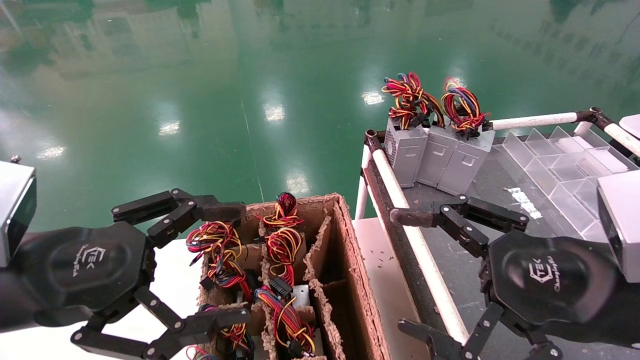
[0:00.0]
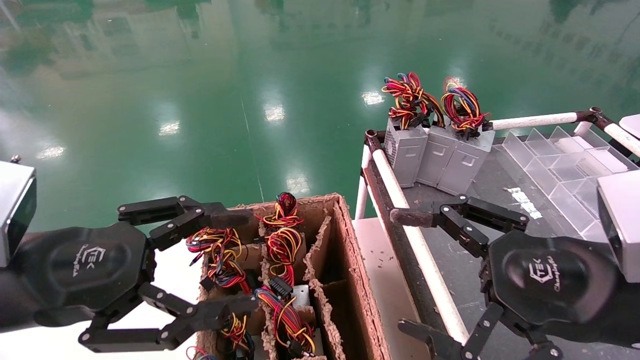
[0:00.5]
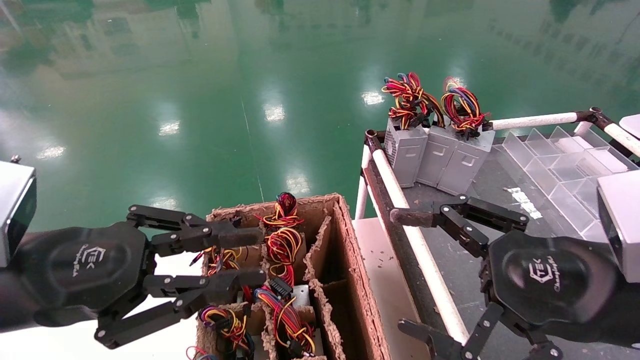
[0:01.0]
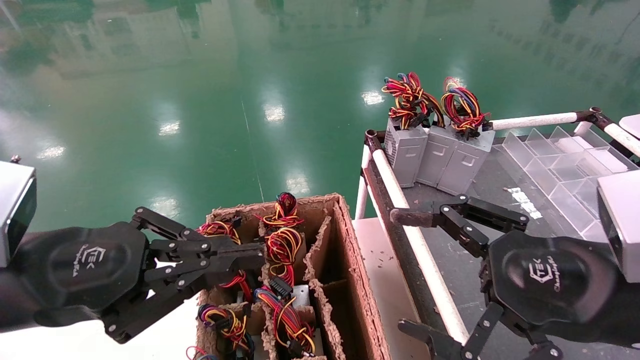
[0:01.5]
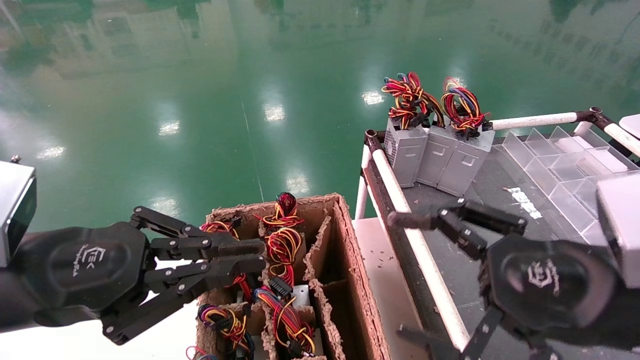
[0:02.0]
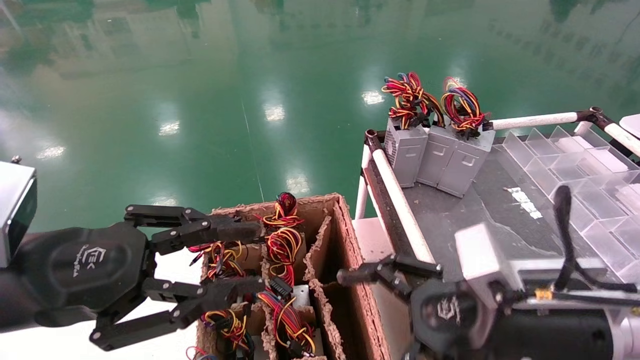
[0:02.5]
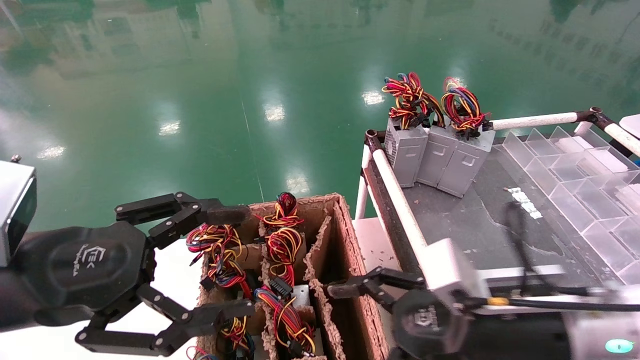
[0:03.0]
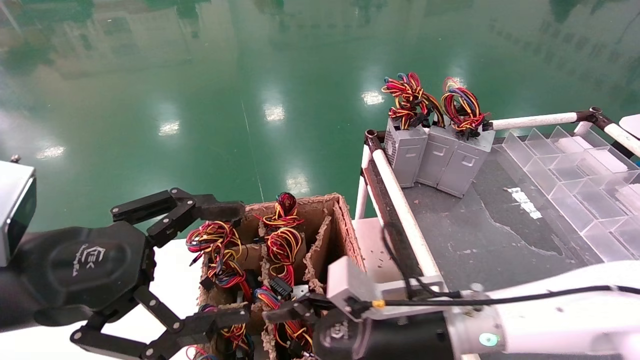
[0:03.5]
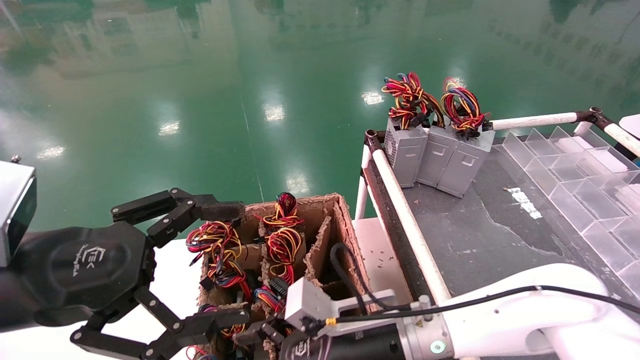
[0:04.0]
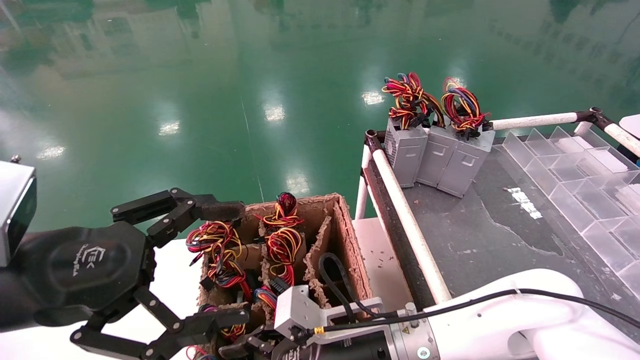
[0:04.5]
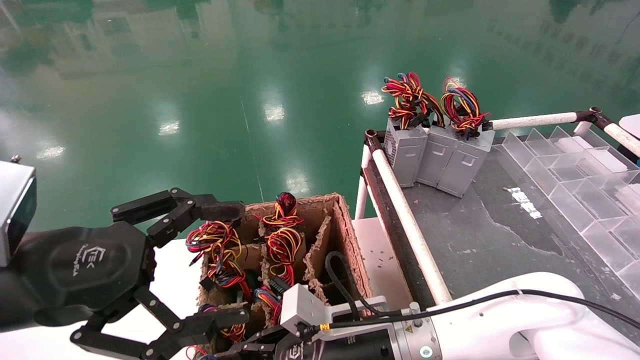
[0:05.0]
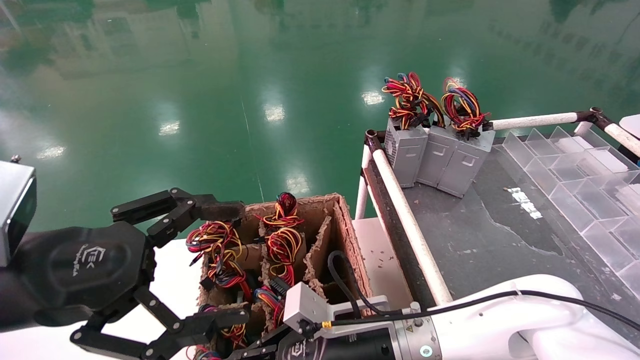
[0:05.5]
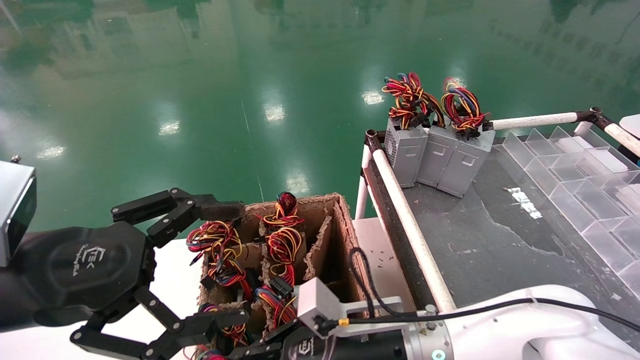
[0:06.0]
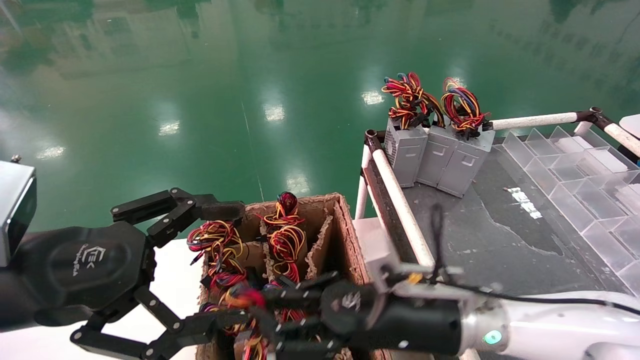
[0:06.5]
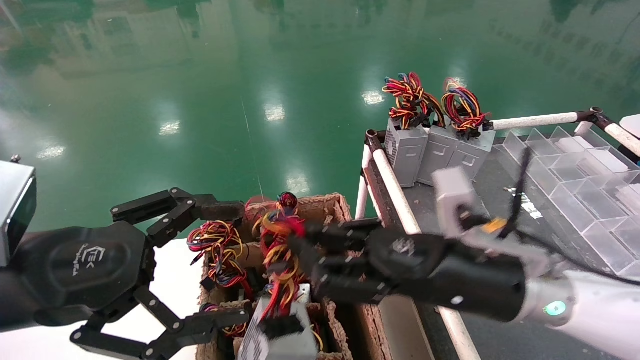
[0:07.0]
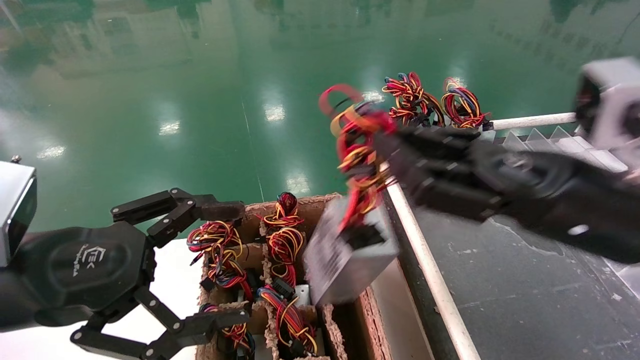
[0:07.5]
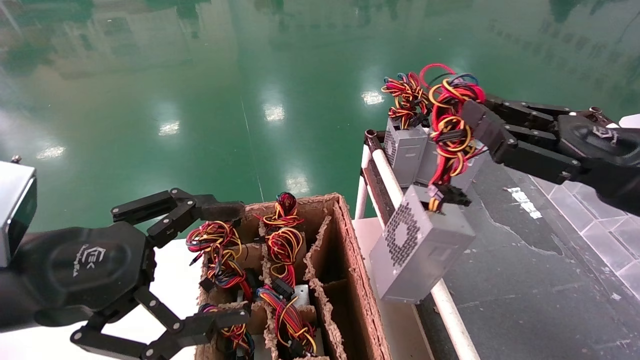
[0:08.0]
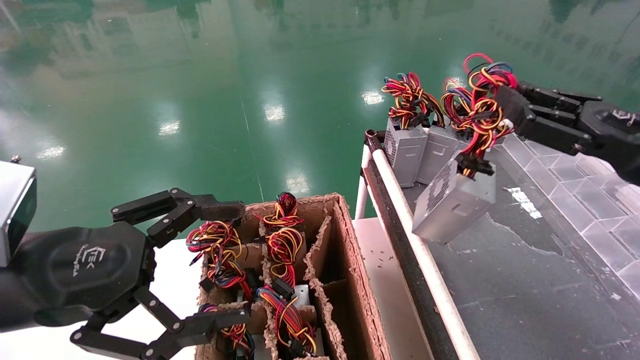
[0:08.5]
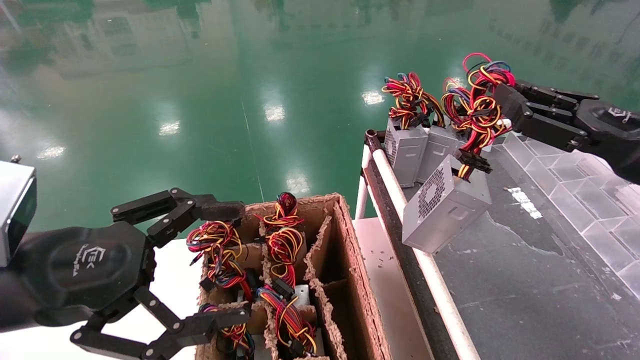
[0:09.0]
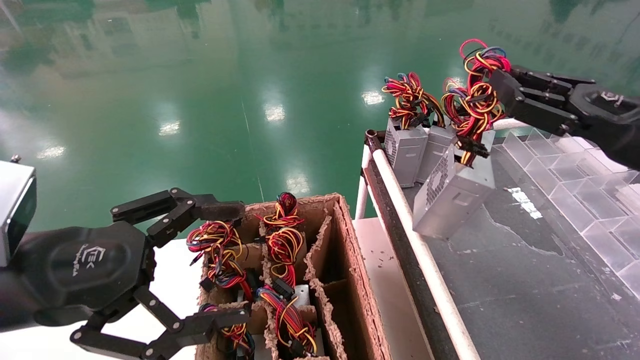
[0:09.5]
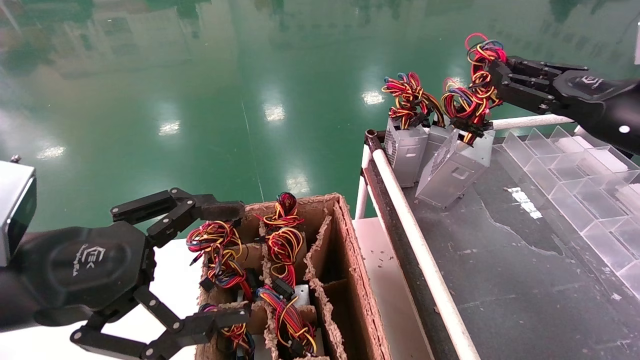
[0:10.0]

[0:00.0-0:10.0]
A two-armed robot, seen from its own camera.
Step, 0:02.0 to 0:05.5: Grab and lift the power supply from the large box.
0:00.0 to 0:02.0: The left gripper closes up.
0:02.0 to 0:04.0: The left gripper opens its fingers. The right gripper is displaced to the left, downward and forward by some 25 cm.
0:04.0 to 0:06.0: The right gripper closes its fingers.
0:06.0 to 0:08.0: The right gripper travels to the right and upward by about 30 cm.
0:08.0 to 0:10.0: The right gripper is displaced forward and to the right by about 10 cm.

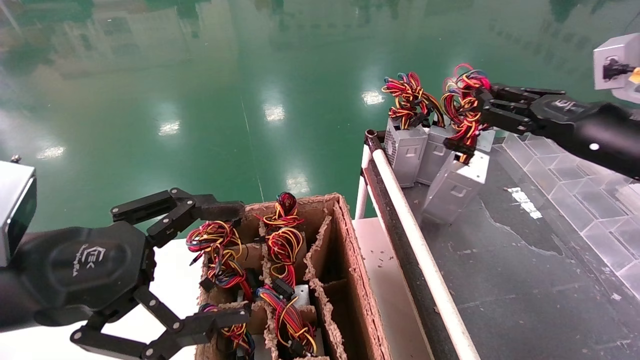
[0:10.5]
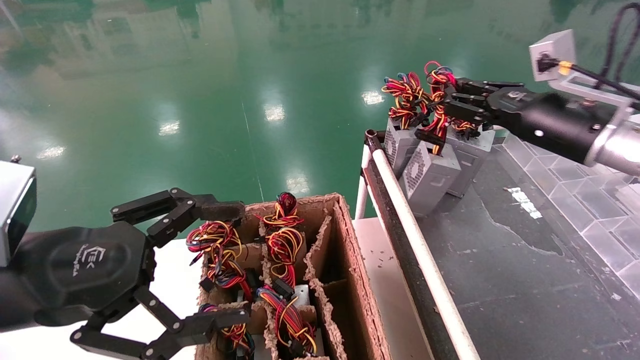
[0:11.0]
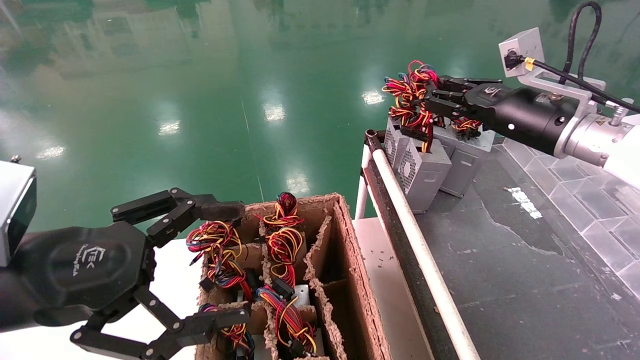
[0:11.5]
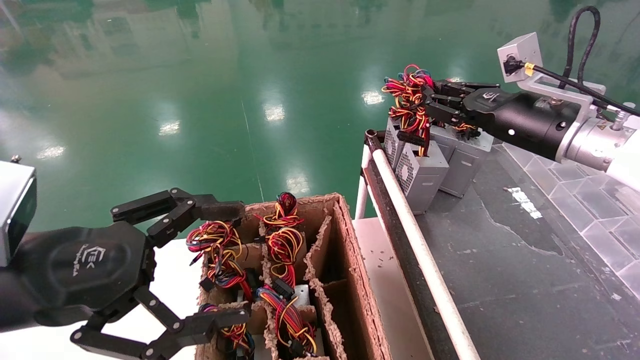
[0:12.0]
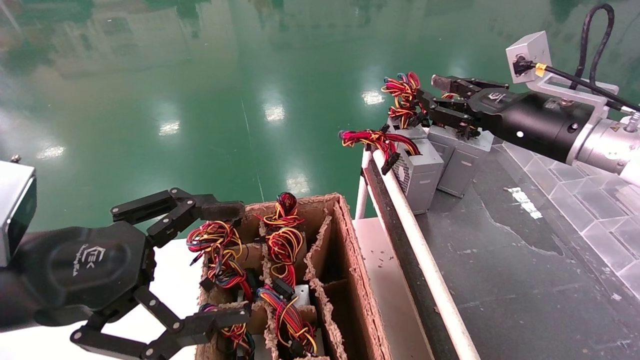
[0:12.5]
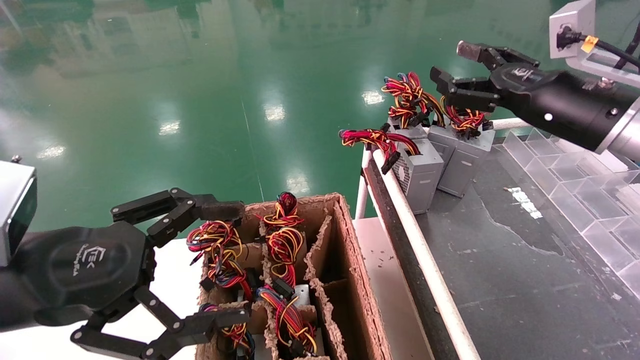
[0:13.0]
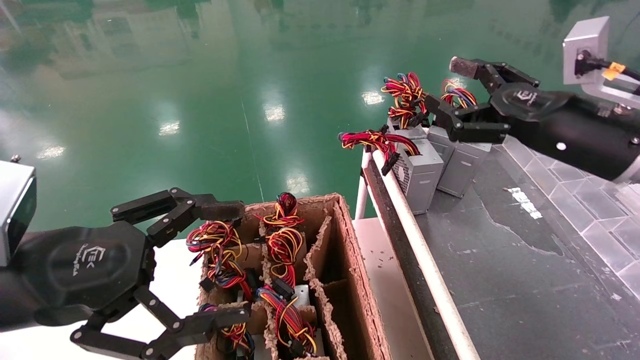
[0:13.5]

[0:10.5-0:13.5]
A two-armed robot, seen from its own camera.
Step, 0:10.5 to 0:12.5: Place the power supply on the operating table.
0:10.5 to 0:12.0: The right gripper shifts some 10 cm to the left and forward.
0:12.0 to 0:13.5: The right gripper heads backward, covering approximately 5 cm, and opens its fingers.

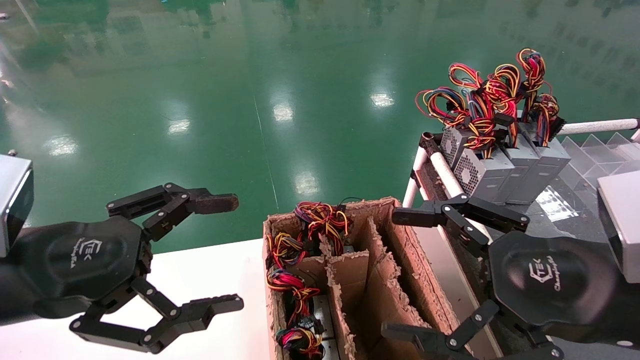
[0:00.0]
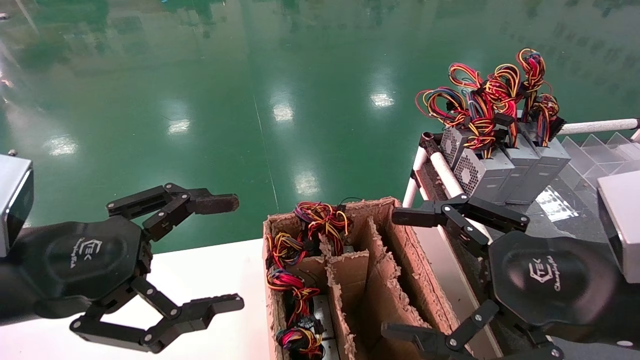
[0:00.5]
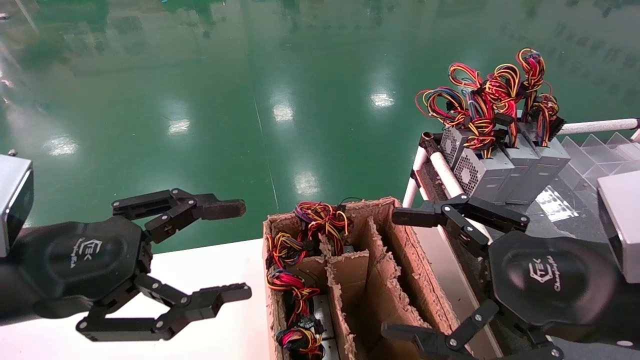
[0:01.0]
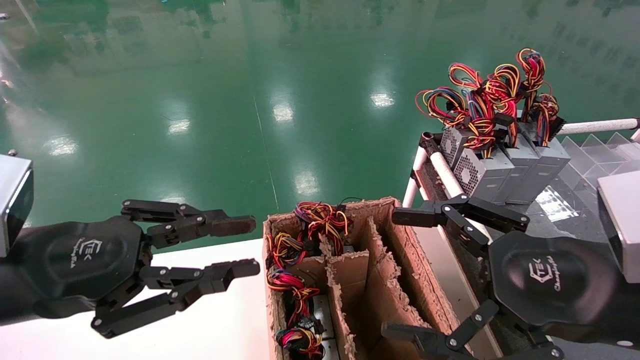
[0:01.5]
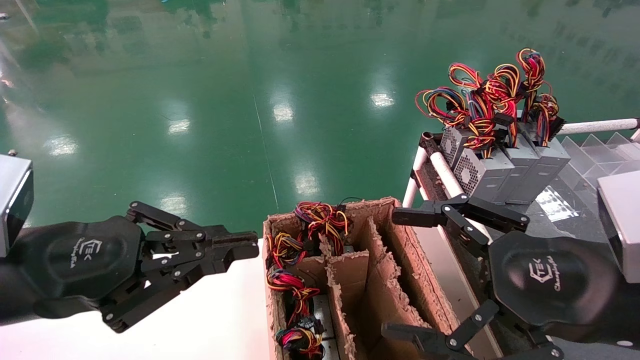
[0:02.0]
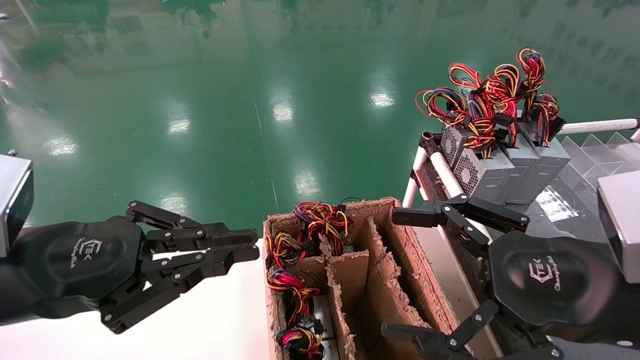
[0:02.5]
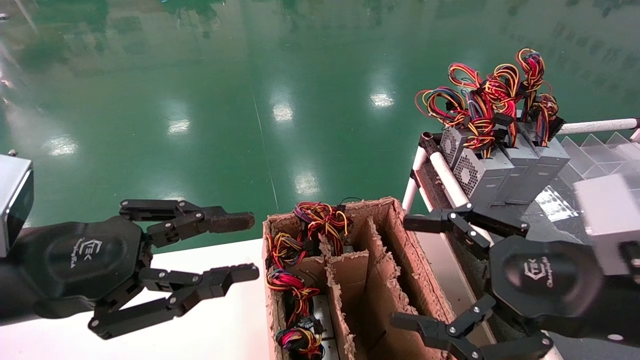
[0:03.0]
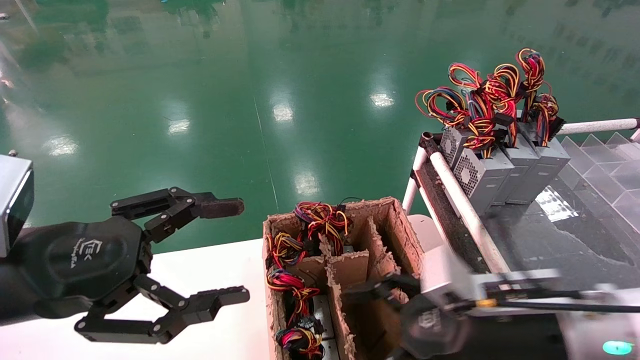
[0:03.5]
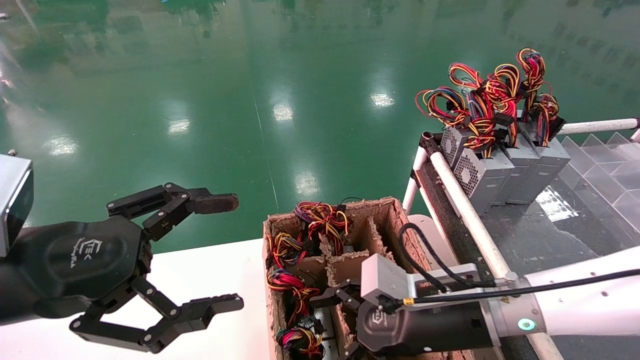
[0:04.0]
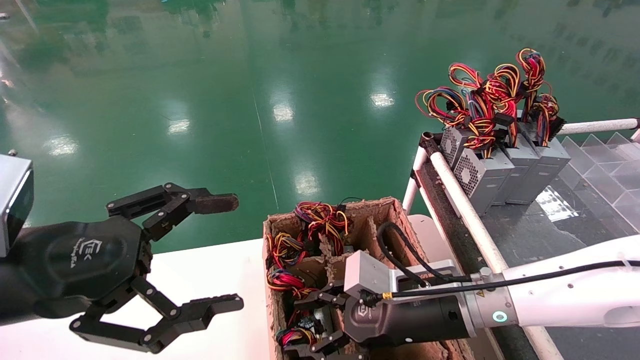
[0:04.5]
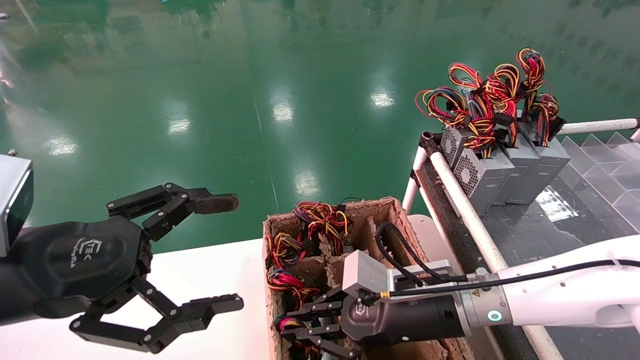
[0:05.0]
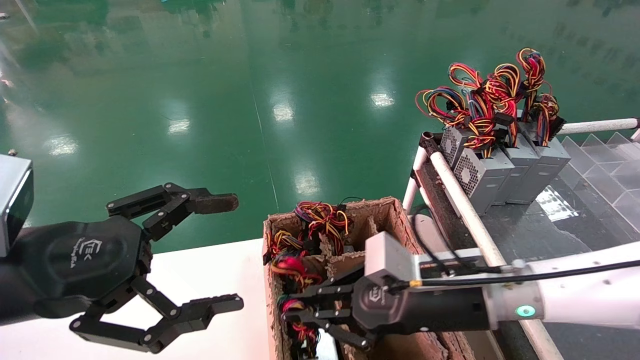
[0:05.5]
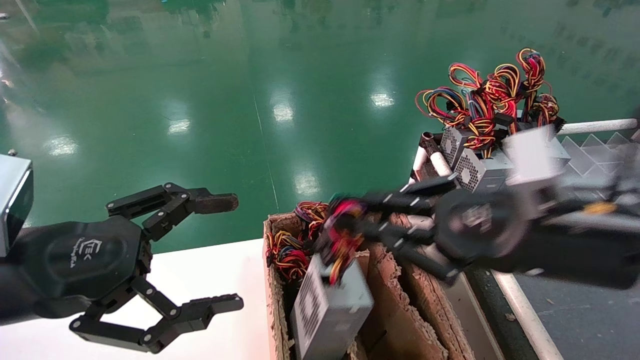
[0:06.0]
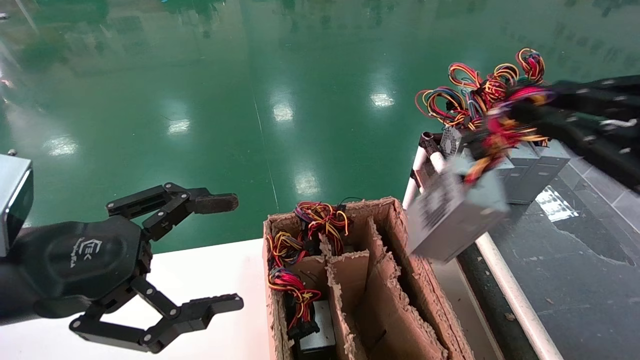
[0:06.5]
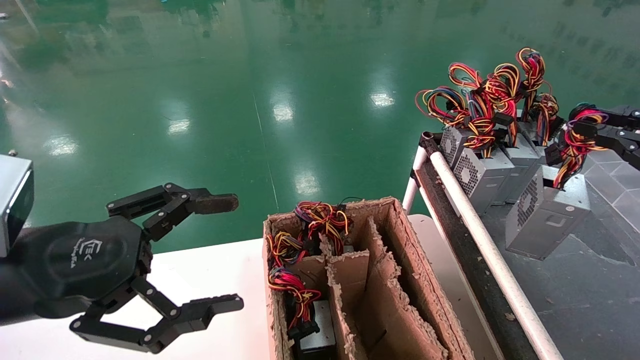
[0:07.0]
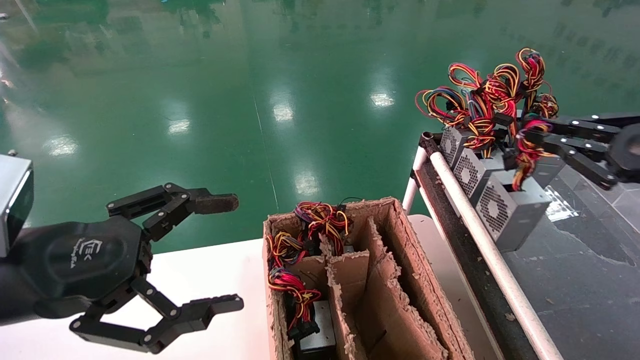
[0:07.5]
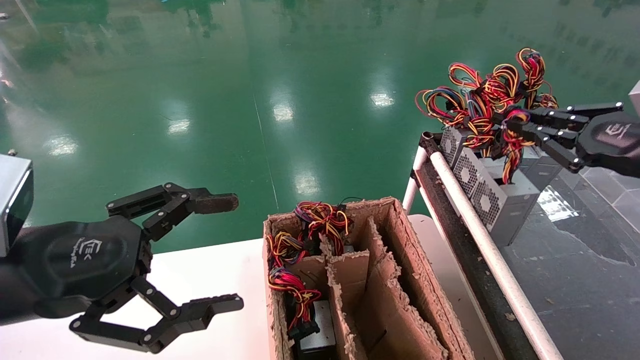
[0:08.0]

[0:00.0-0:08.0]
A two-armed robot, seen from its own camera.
Step, 0:02.5 to 0:05.0: Grab and lift the power supply from the large box.
0:00.0 to 0:02.0: The left gripper closes.
0:02.0 to 0:04.0: The right gripper goes about 20 cm forward, downward and to the left. Meanwhile the left gripper opens.
0:04.0 to 0:06.0: The right gripper shifts approximately 15 cm upward, to the right and backward, and closes.
0:06.0 to 0:08.0: The right gripper is displaced to the right and forward by roughly 20 cm.
